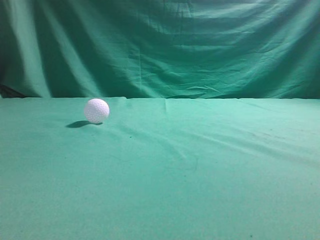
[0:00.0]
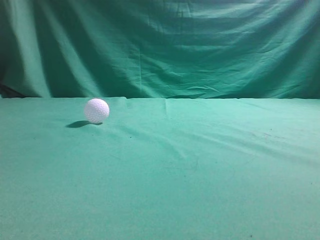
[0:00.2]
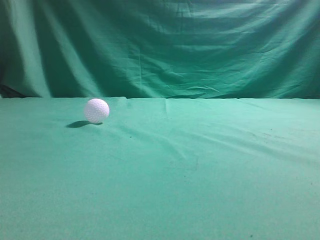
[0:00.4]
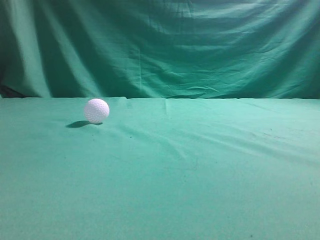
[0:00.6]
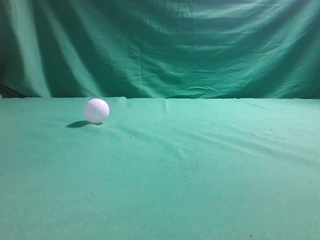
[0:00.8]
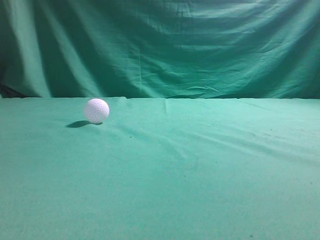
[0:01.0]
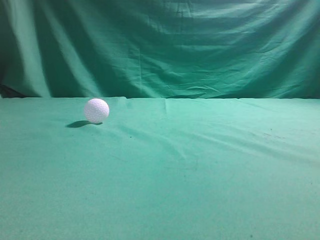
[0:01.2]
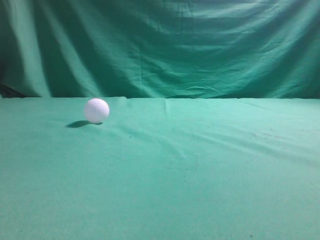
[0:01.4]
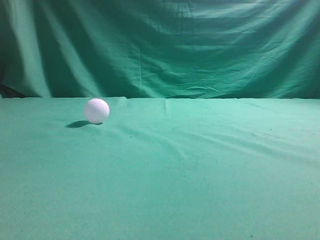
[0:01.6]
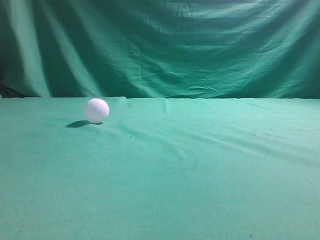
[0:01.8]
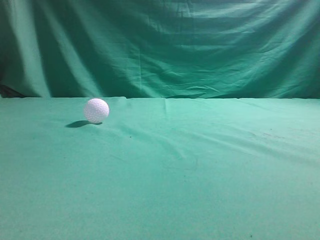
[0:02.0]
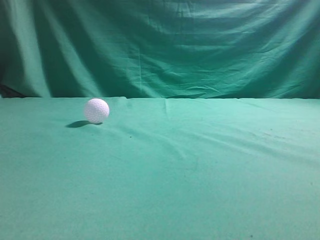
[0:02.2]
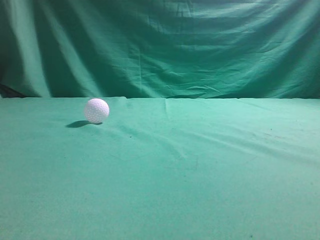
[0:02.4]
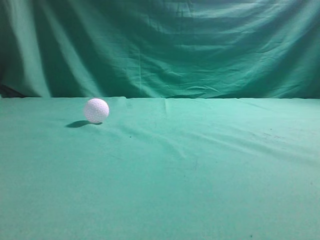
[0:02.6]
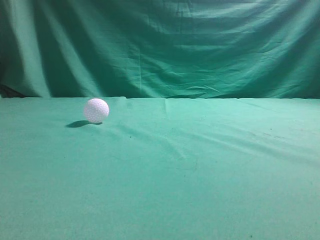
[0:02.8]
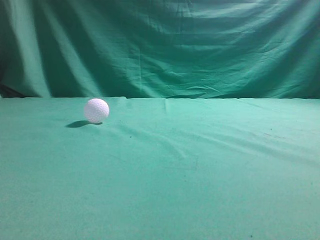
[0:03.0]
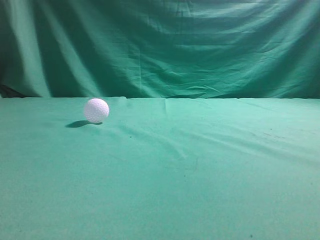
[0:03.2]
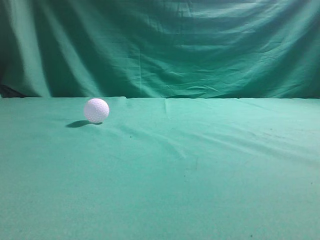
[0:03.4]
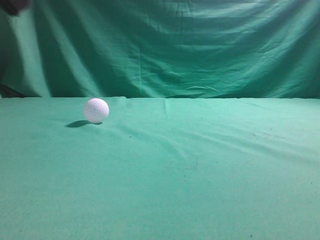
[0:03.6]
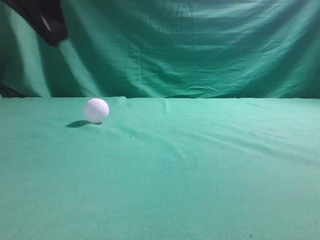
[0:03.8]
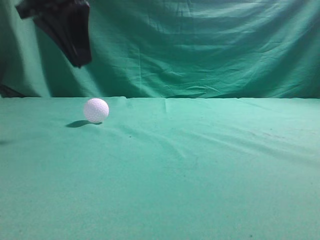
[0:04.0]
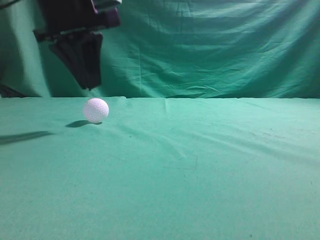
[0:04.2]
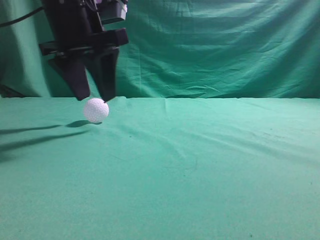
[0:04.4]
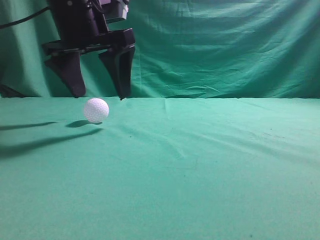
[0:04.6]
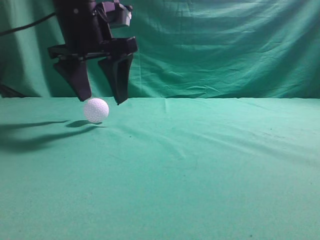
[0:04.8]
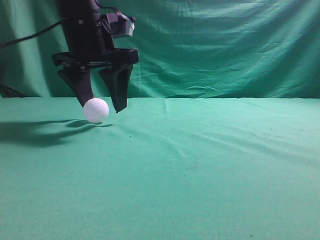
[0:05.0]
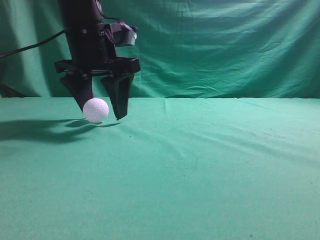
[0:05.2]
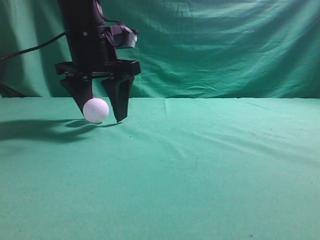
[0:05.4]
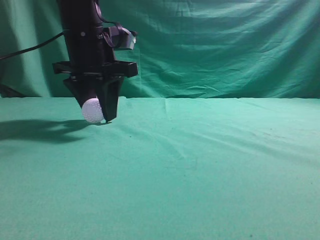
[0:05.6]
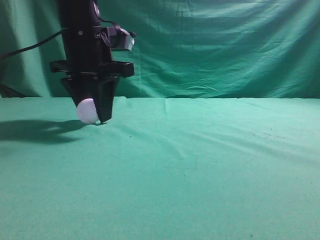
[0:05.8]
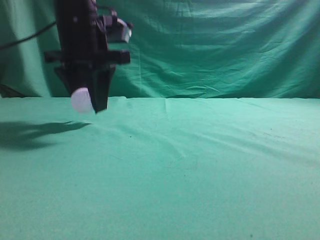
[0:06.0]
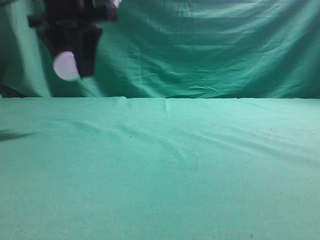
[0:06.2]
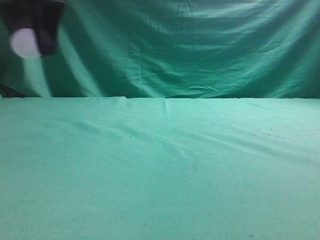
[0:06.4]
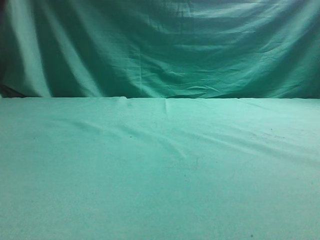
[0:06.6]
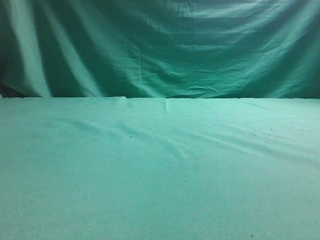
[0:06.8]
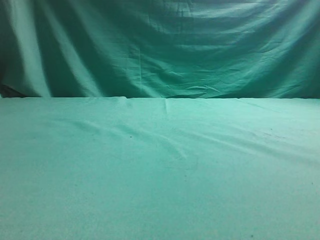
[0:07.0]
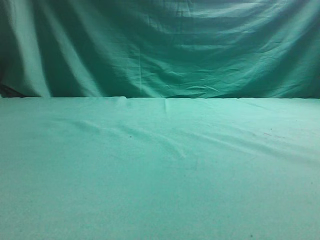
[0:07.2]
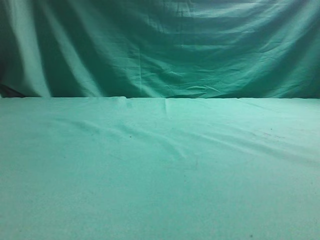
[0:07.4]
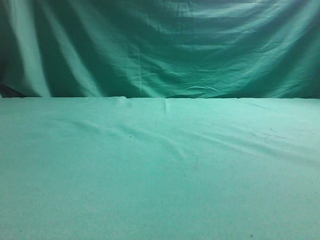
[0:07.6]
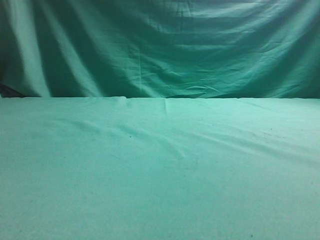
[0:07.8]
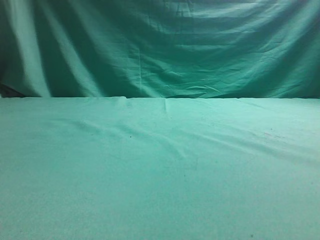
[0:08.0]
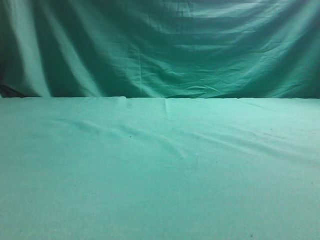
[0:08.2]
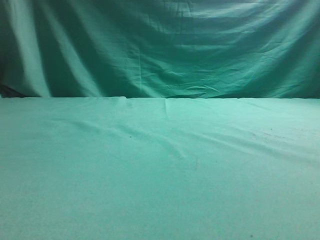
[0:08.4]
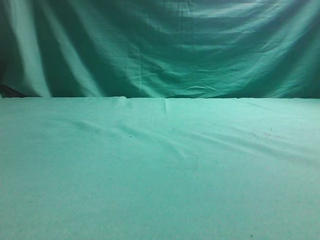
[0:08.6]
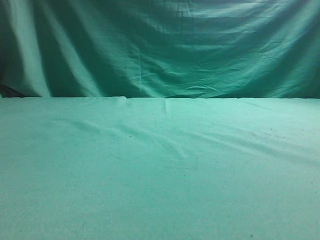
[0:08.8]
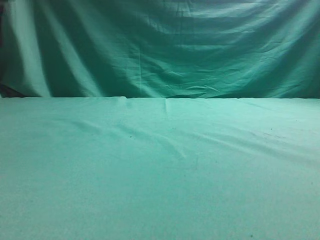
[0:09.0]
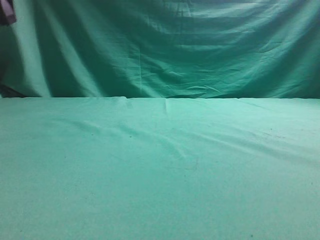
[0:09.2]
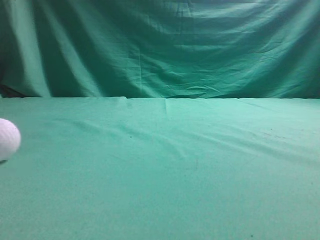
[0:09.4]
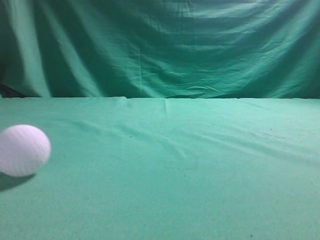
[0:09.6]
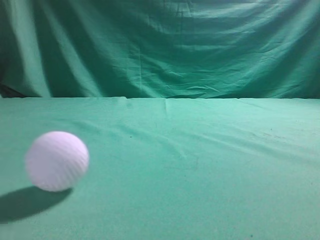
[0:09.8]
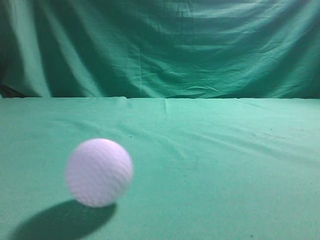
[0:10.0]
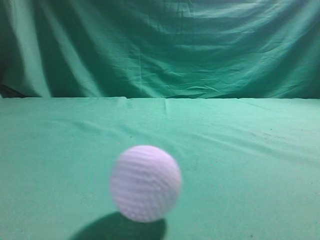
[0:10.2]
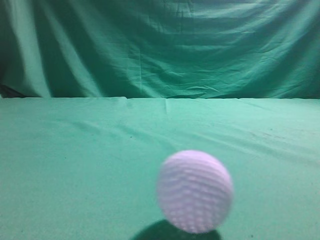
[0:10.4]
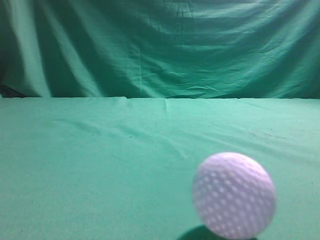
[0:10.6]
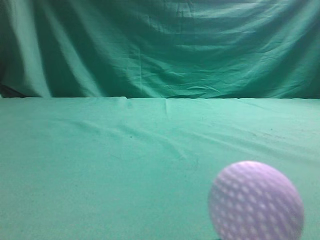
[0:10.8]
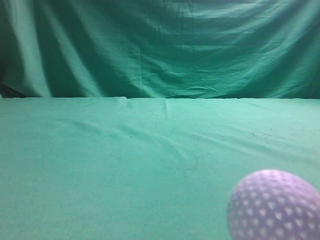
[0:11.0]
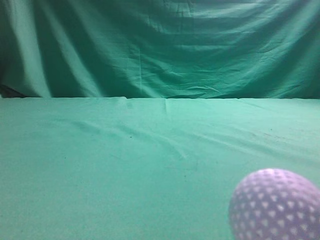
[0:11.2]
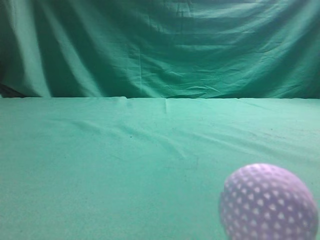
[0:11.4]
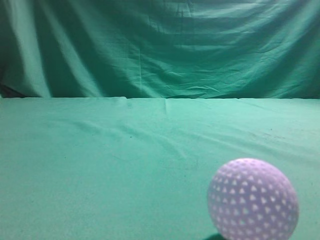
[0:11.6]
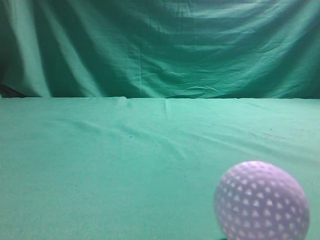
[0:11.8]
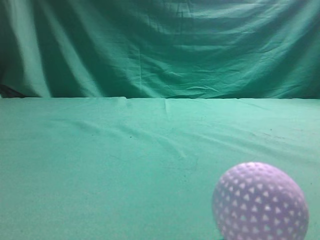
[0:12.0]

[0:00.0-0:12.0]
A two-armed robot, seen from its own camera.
Task of the whole recording: pick up the ball and place it on the plate, then pick up the ball from the plate and put it in the center of the table.
Step, 0:00.0 to 0:06.0: Grab the spherical object with your left arm.
Step, 0:06.2 to 0:08.6: Place the sphere on the white object.
0:03.0 to 0:04.4: The left gripper heads forward and to the right, covering approximately 30 cm, and opens its fingers.
0:04.4 to 0:06.0: The grippers stay close to where they were, moving slightly.
0:06.0 to 0:07.6: The left gripper shifts about 25 cm to the left.
0:09.0 to 0:10.4: The left gripper heads backward, covering roughly 25 cm, and closes up.
0:10.4 to 0:12.0: The right gripper heads upward and to the left, covering roughly 10 cm, while the left gripper shifts approximately 10 cm downward and backward.

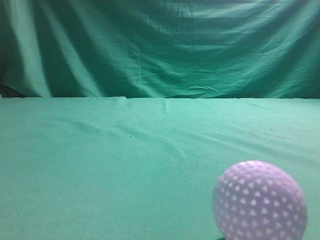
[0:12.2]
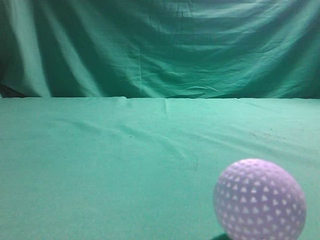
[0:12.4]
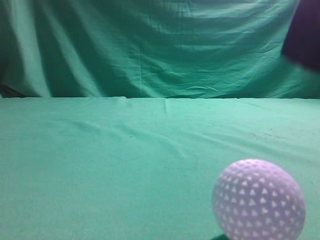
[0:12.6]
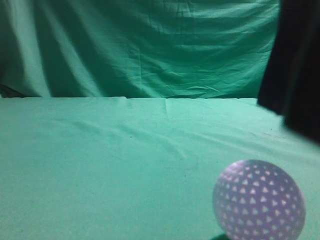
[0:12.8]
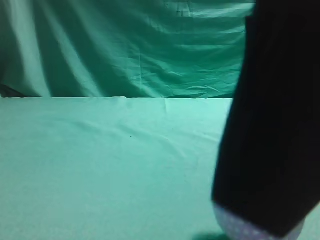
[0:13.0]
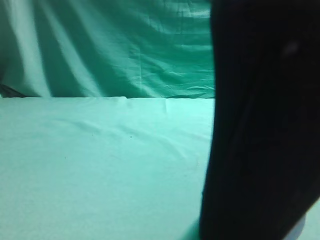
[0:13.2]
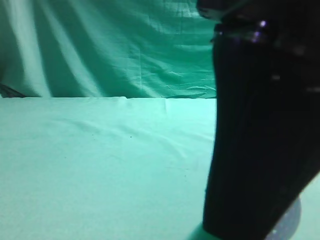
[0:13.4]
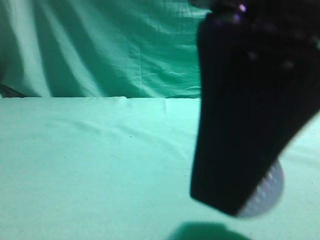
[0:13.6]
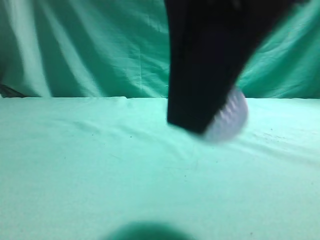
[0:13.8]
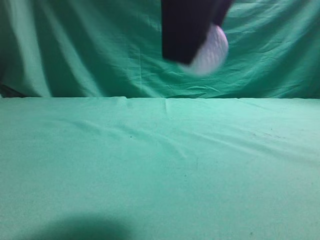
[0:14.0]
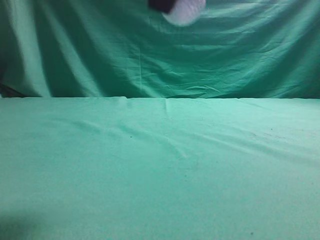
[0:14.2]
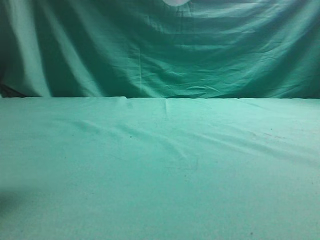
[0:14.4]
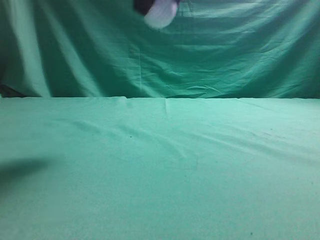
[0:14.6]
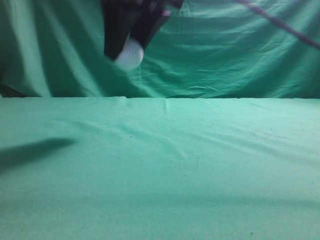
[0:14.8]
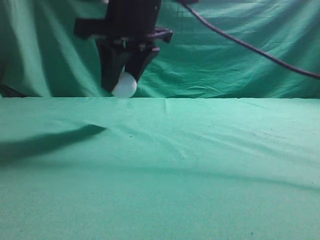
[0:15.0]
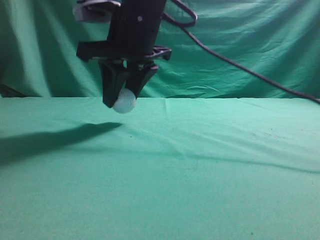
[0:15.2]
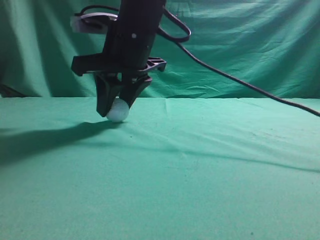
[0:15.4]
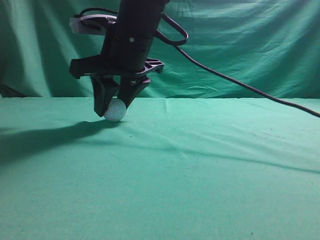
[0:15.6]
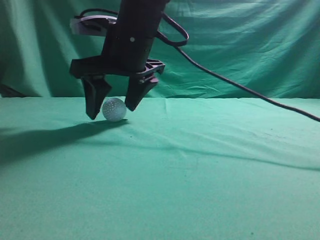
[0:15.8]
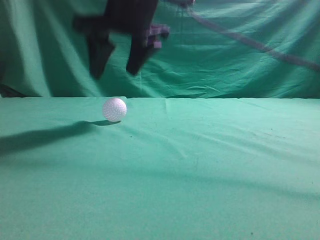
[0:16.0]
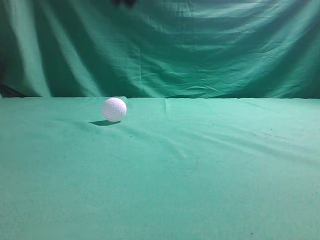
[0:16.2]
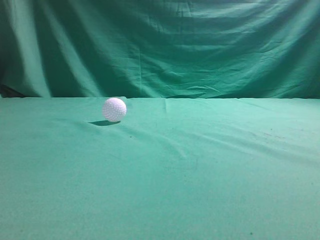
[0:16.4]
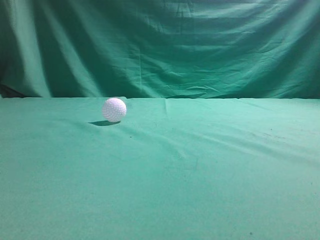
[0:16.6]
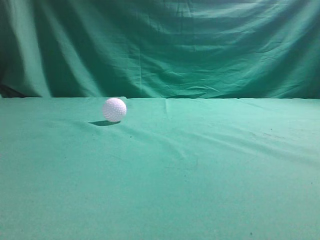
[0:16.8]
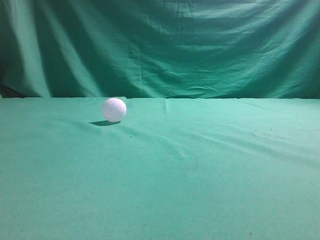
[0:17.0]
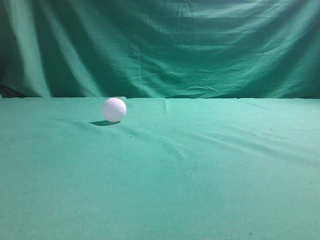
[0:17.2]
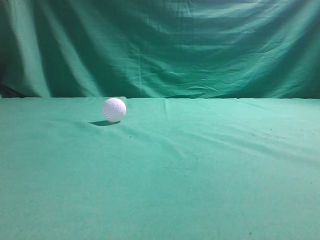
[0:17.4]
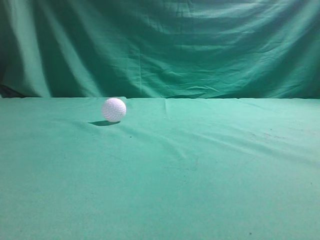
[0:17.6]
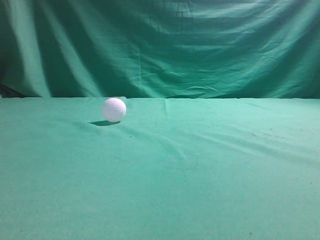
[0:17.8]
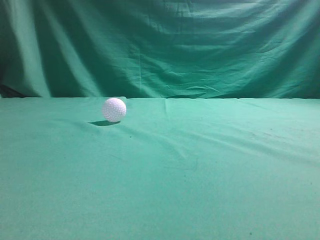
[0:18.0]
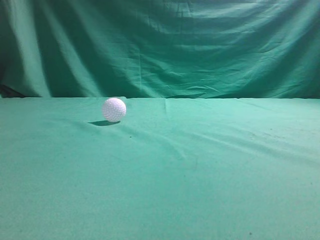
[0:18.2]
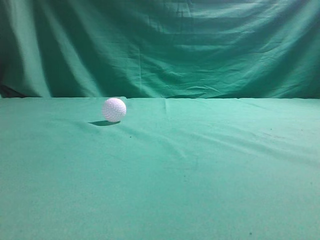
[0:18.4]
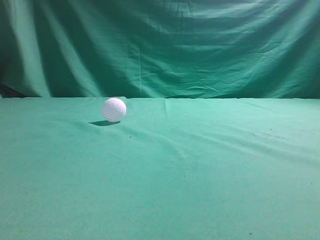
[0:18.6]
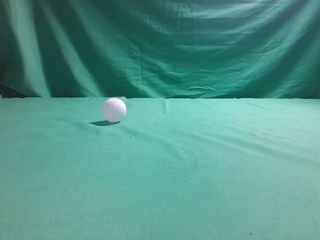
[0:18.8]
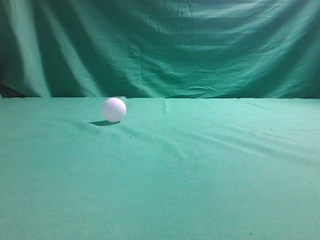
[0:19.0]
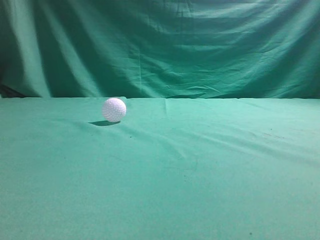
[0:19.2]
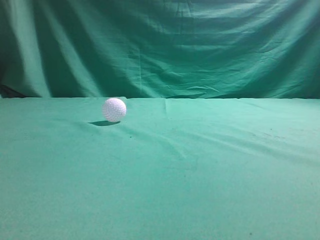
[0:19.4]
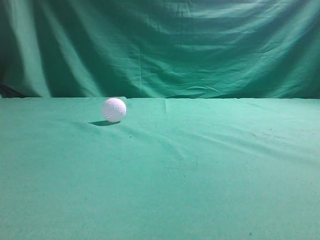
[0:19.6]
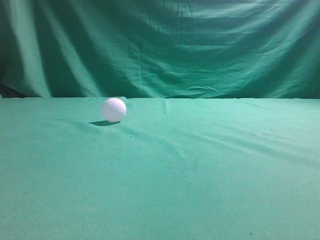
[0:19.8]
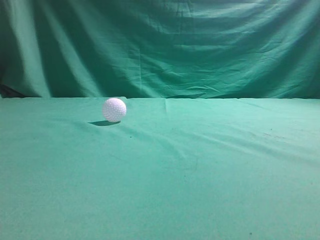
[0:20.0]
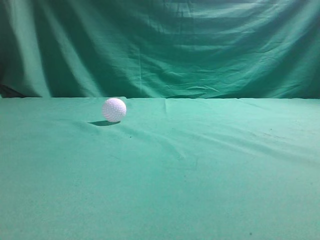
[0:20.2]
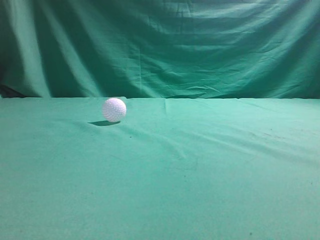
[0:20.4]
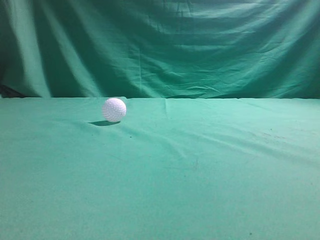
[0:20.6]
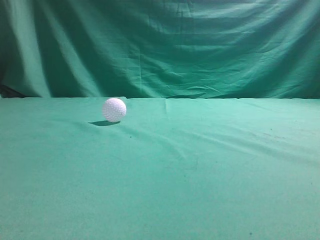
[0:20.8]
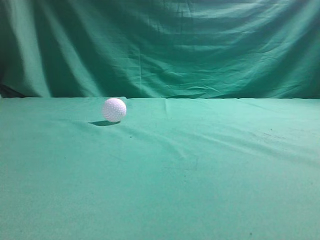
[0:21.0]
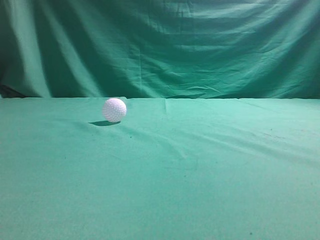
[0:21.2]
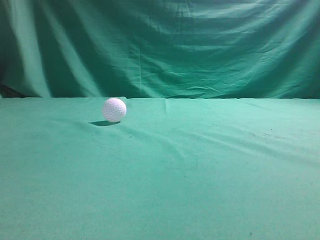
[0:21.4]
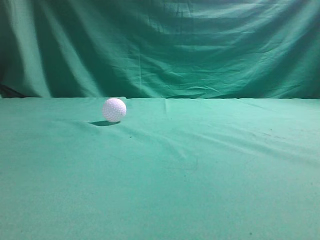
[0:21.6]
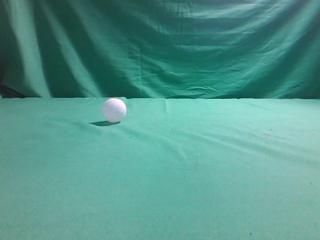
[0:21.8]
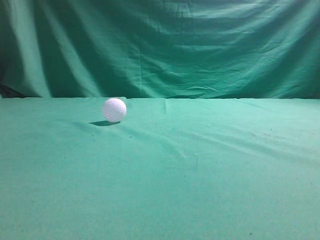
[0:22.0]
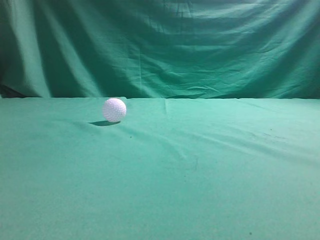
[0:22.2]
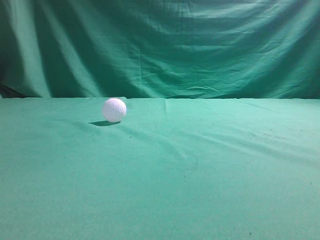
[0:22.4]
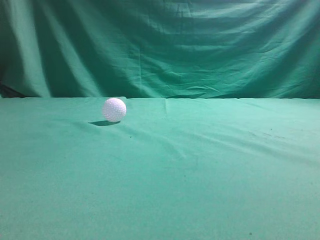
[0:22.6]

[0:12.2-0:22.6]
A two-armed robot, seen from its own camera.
Task of the whole recording: pick up the ball and place it on the plate, then pick up the ball from the plate and put it in the center of the table.
Step, 0:13.6 to 0:15.8: Put the picked-up object on the table.
0:12.2 to 0:13.6: The right gripper heads to the left and downward, covering some 15 cm, and opens up.
0:13.6 to 0:15.2: The right gripper goes roughly 25 cm forward and to the left.
0:15.2 to 0:16.6: The right gripper shifts approximately 35 cm upward, backward and to the right, and closes up.
